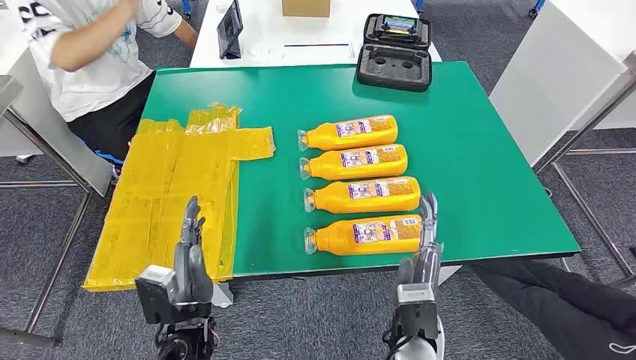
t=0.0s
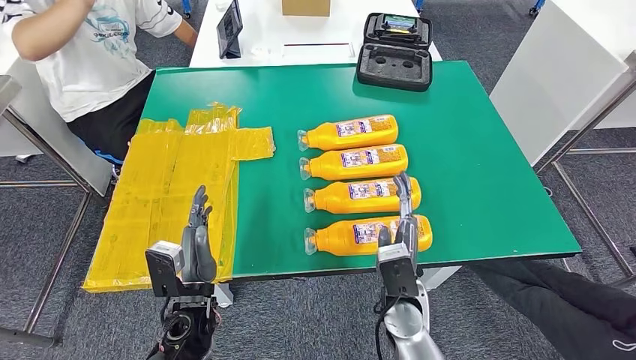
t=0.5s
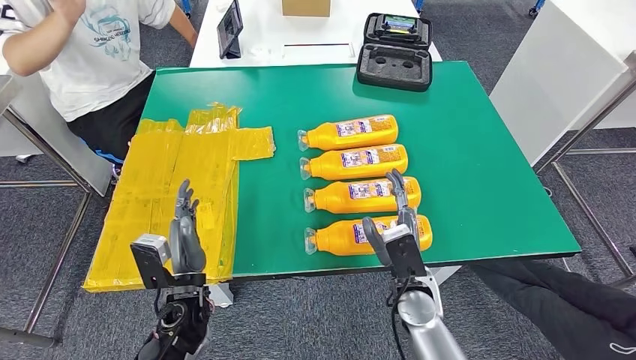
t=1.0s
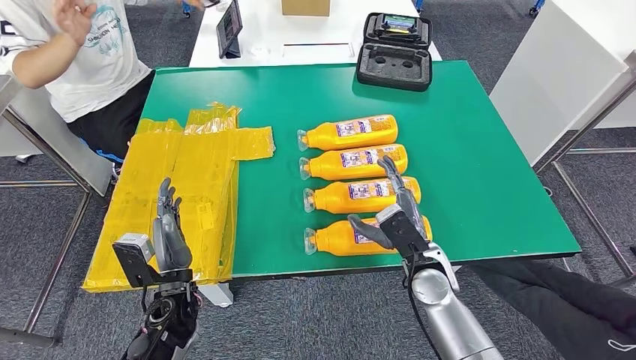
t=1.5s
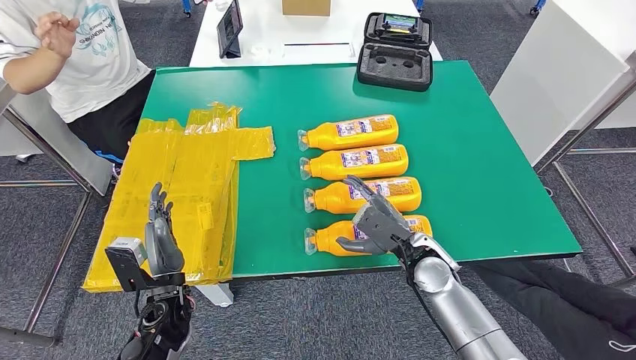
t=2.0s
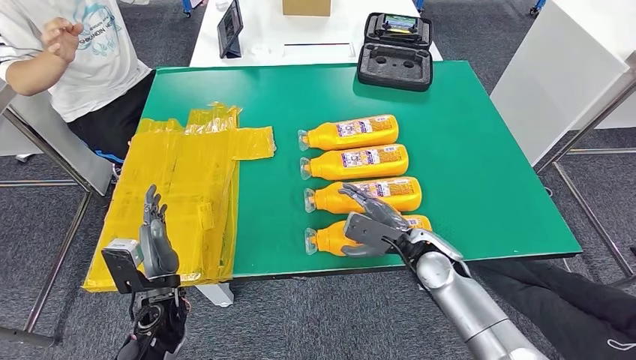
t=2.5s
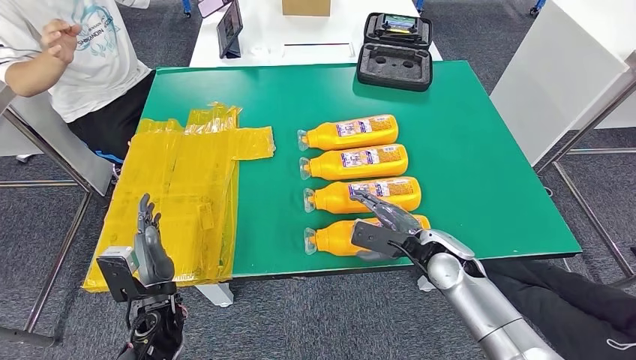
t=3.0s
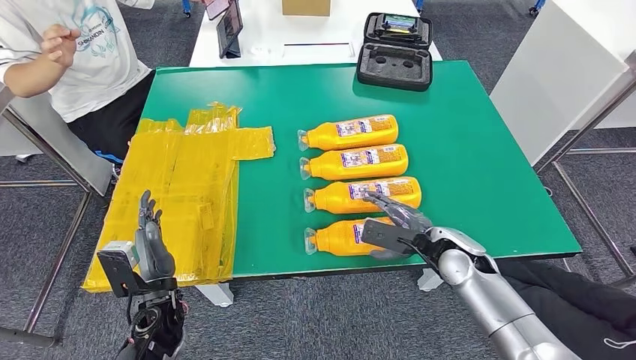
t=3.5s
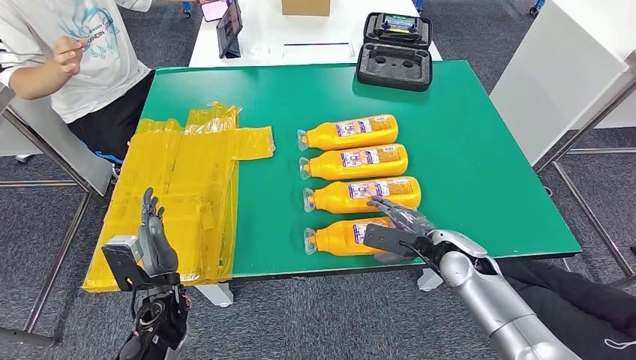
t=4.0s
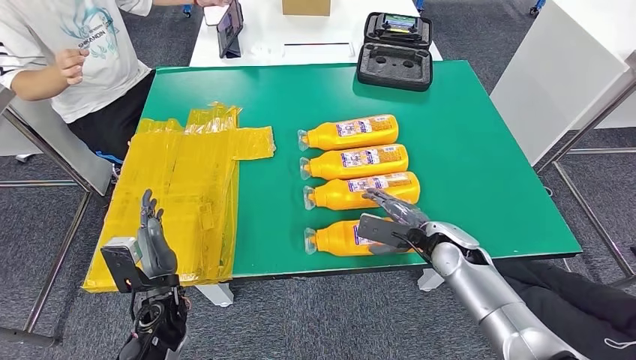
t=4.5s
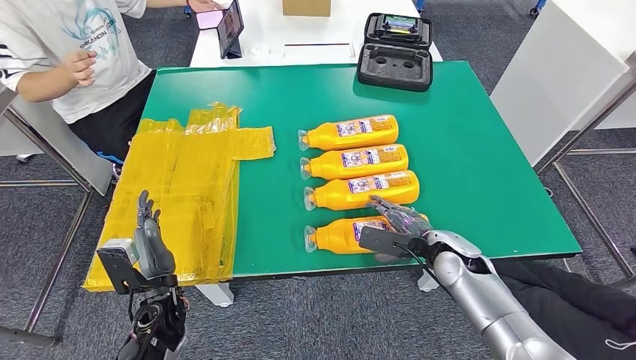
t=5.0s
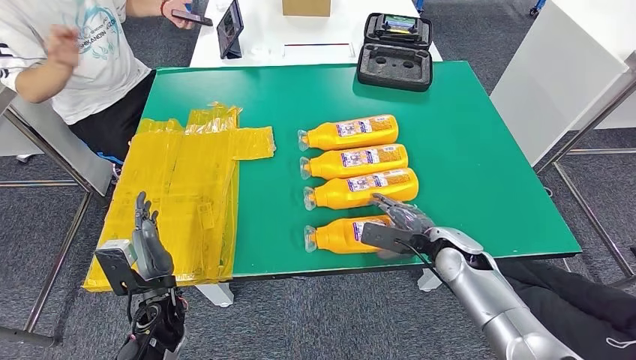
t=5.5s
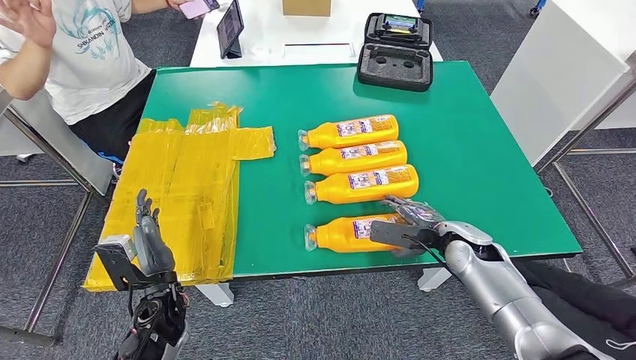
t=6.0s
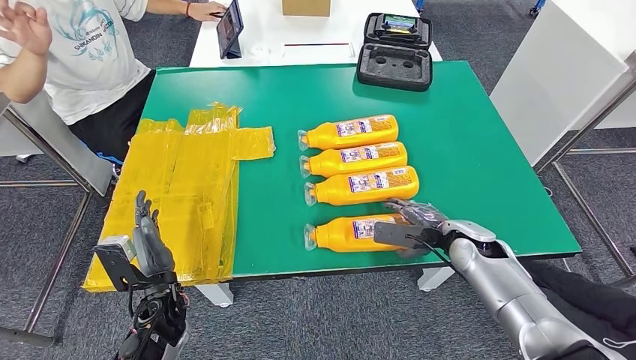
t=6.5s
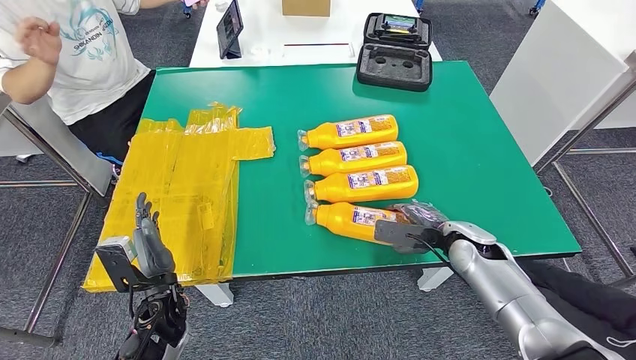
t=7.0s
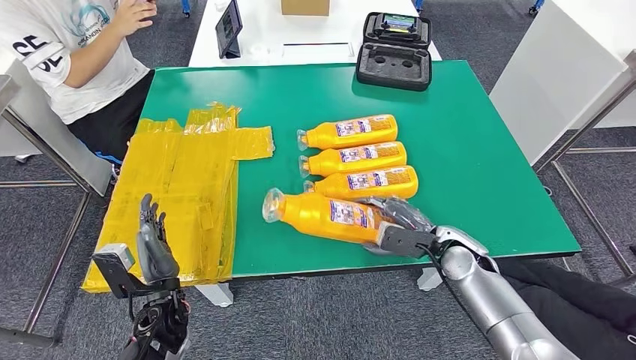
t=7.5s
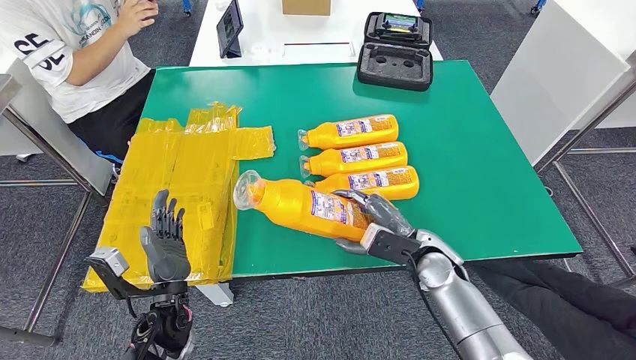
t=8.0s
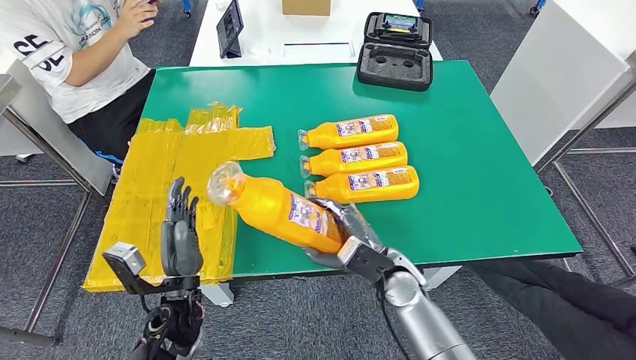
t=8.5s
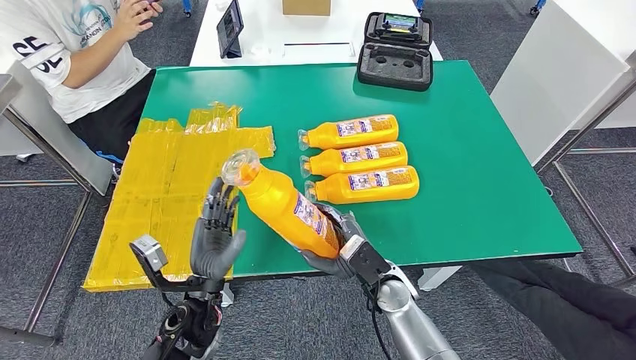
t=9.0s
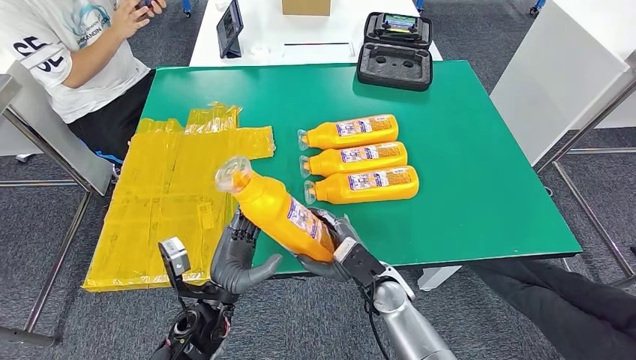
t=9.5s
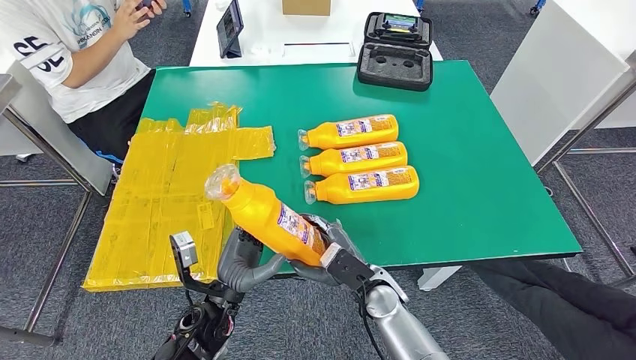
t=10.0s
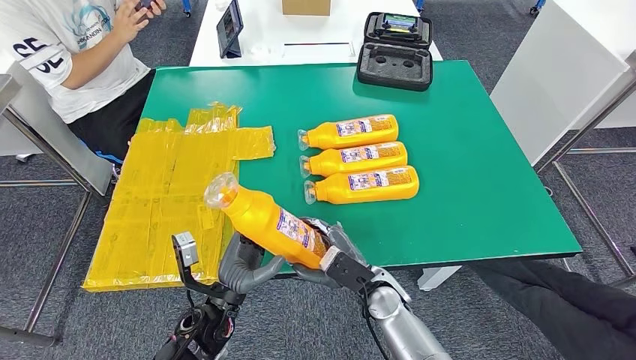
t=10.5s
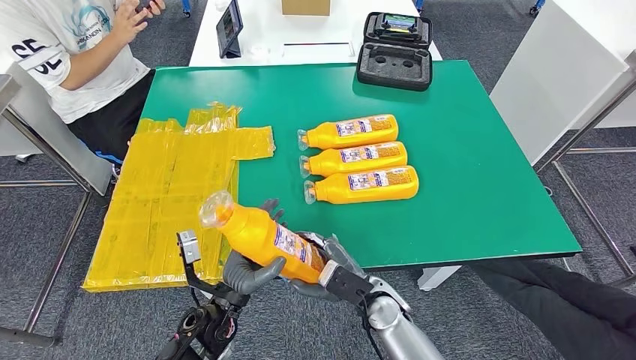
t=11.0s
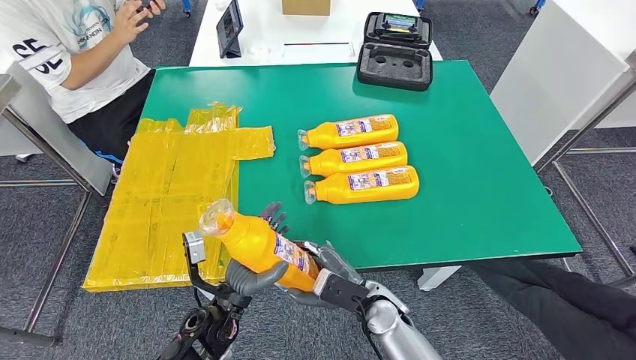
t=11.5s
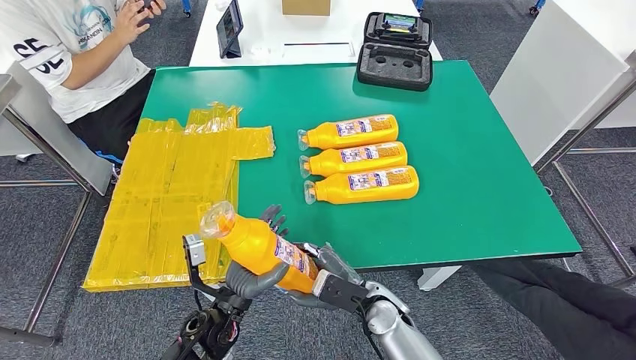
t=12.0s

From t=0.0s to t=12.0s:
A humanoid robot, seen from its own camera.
Step, from t=0.0s to t=8.5s: Take the fast-moving consumer goods bottle from the table.
From t=2.0s to t=4.0s: The right hand moves to the right, about 5 cm.
From t=4.0s to t=6.0s: There are only small adjustments of the hands.
From t=6.0s to t=8.0s: The right hand travels to the left by about 5 cm.
From t=8.0s to t=10.0s: The left hand heads to the right, covering about 10 cm, while the right hand moves to the left and downward, roughly 10 cm.
From t=10.0s to t=12.0s: The hands stay close to where they were, moving slightly.

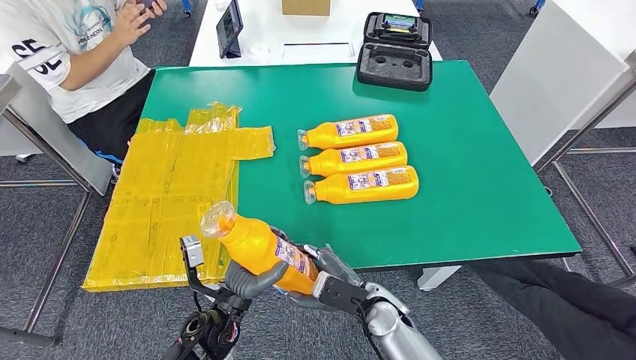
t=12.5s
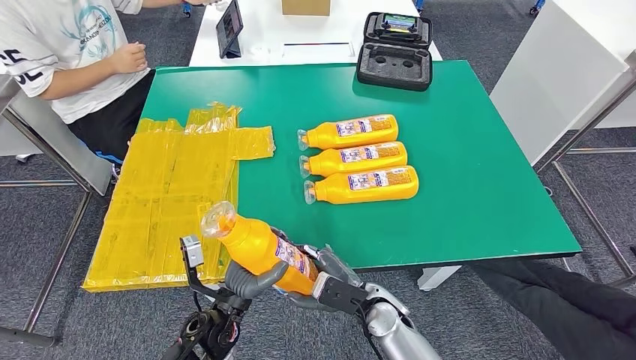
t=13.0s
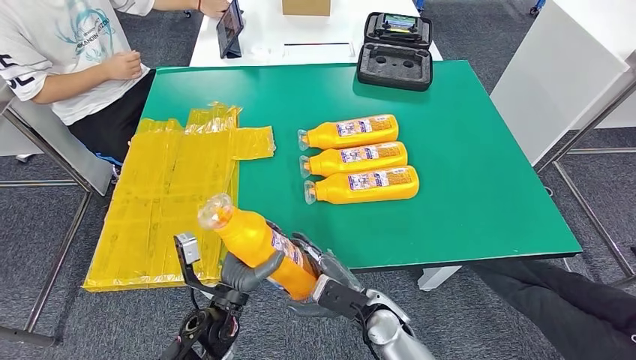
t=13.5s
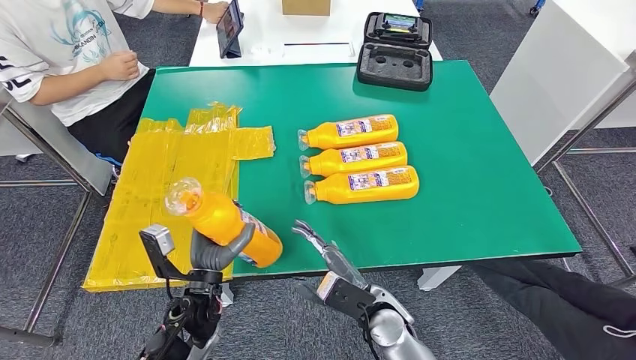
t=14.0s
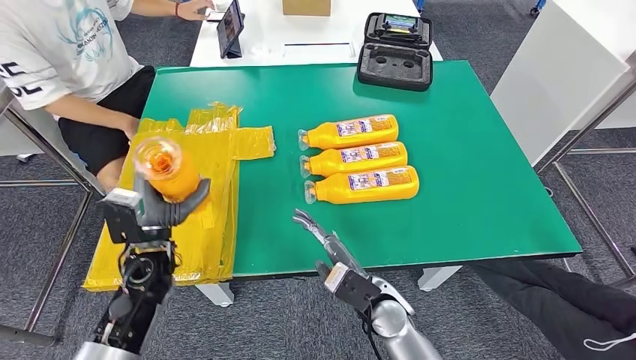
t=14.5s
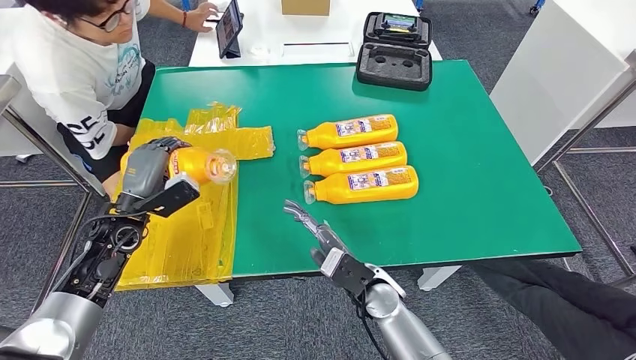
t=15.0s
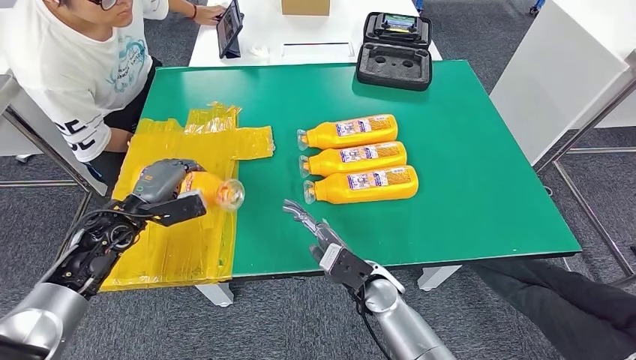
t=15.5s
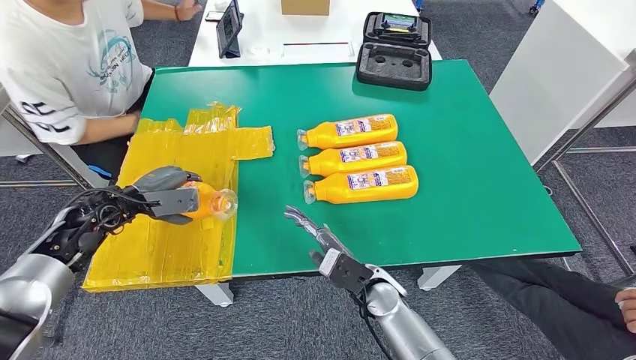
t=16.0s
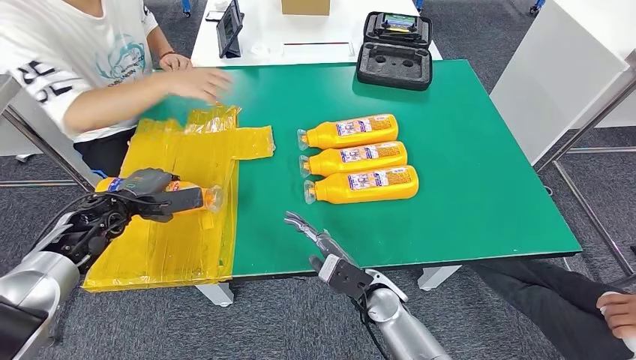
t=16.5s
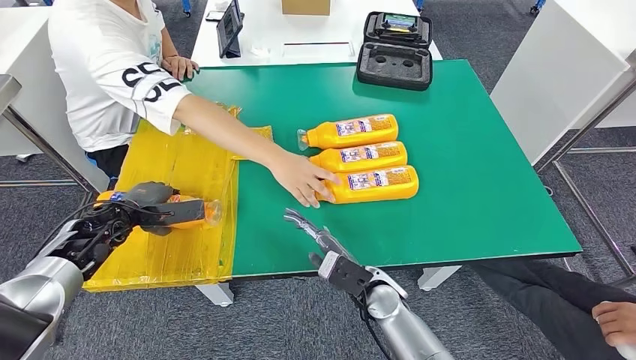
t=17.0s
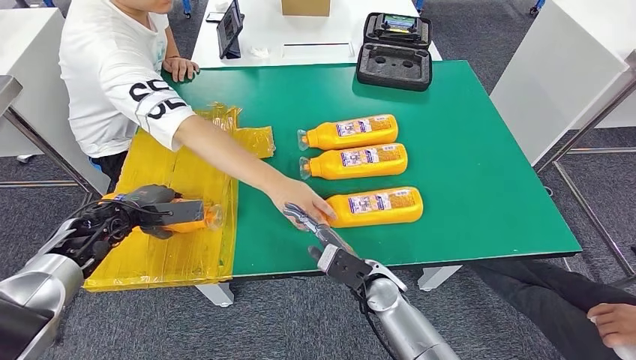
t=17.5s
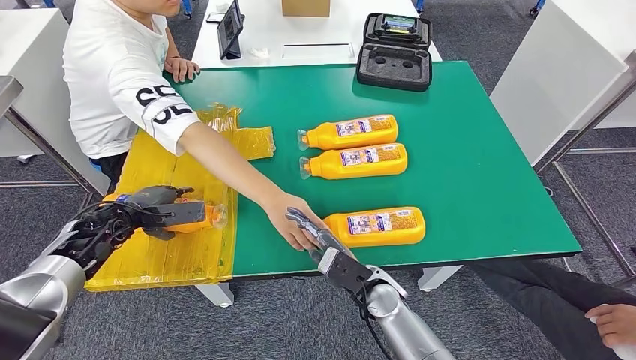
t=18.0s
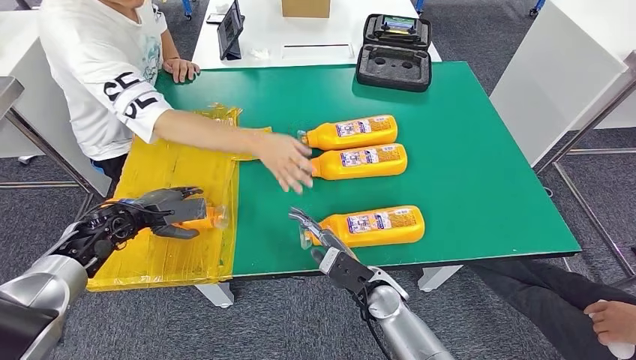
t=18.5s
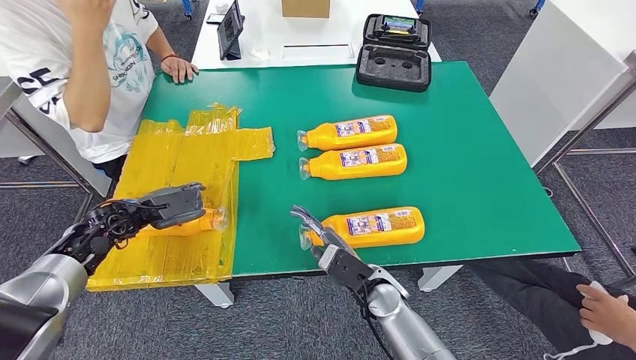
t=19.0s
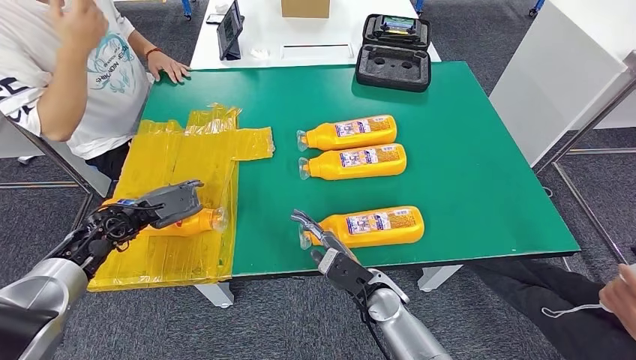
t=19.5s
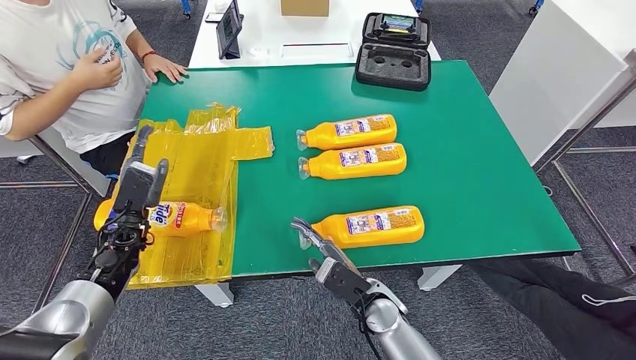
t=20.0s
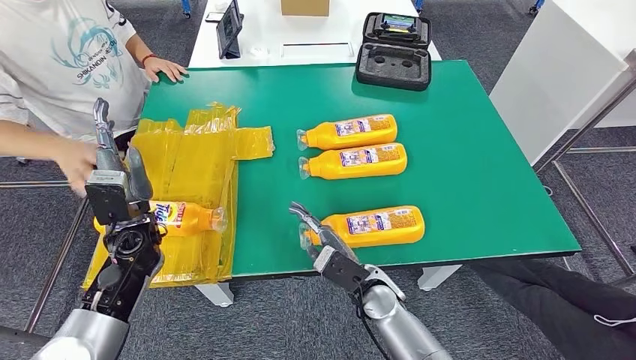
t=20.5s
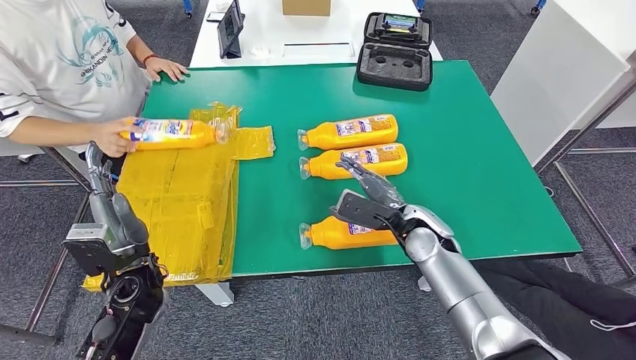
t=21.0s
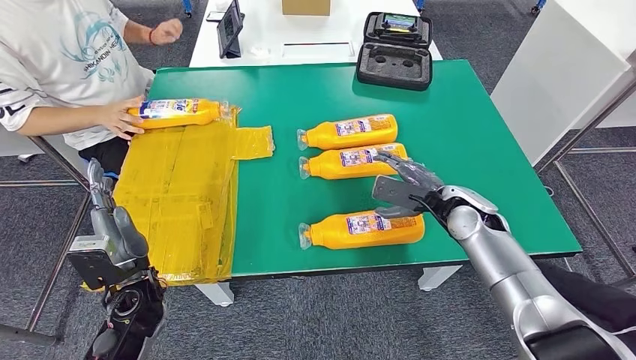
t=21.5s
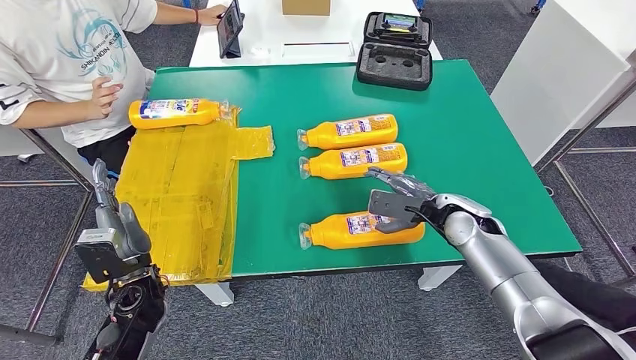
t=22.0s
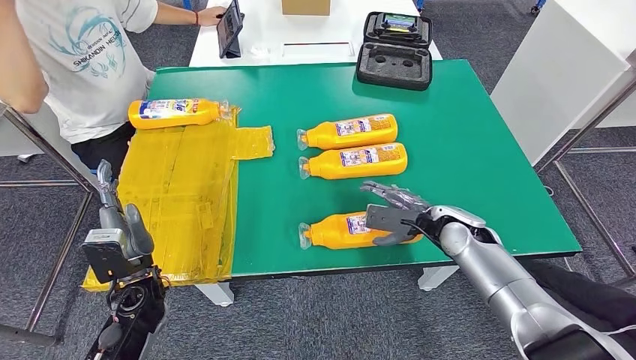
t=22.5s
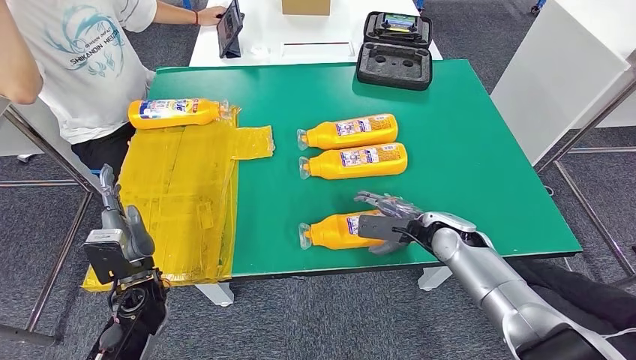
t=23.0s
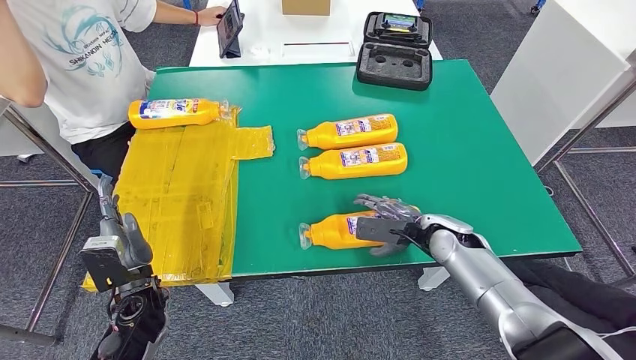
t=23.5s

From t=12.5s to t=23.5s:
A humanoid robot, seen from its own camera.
Step, from t=12.5s to t=17.0s: Flip the fast-moving consumer goods bottle to the front side.
From t=12.5s to t=14.5s: The left hand moves to the left, forward and upward, some 15 cm.
From t=14.5s to t=16.0s: The left hand goes approximately 15 cm to the left and forward.
From t=21.5s to t=23.5s: The right hand travels downward by about 5 cm.
